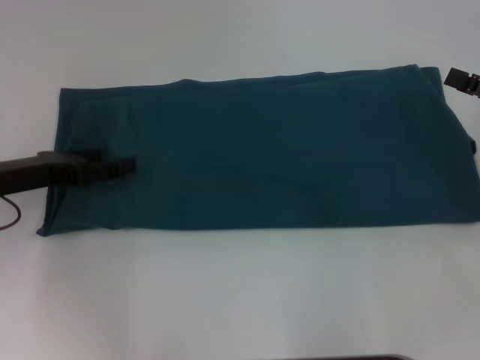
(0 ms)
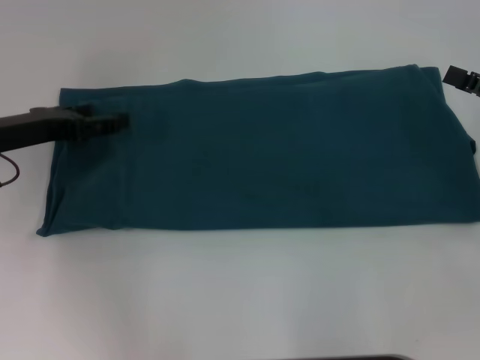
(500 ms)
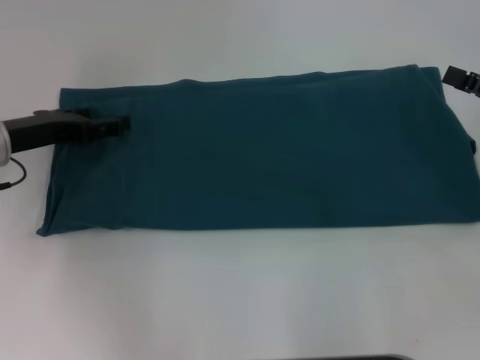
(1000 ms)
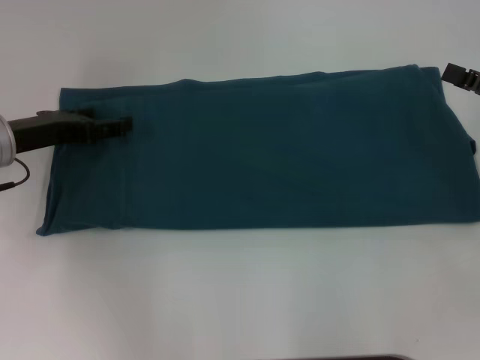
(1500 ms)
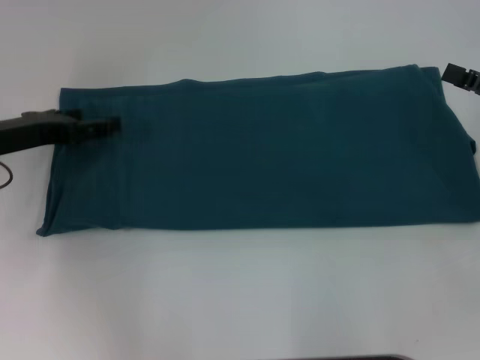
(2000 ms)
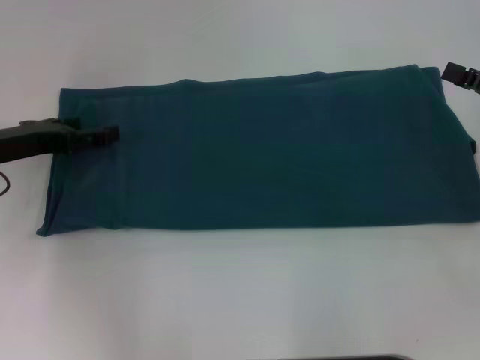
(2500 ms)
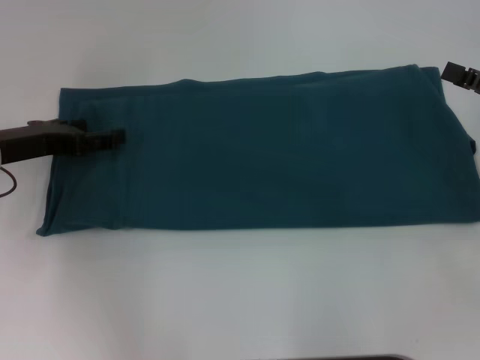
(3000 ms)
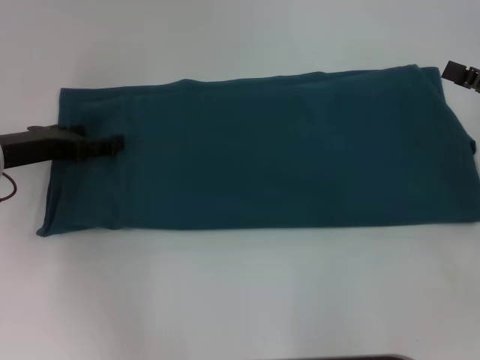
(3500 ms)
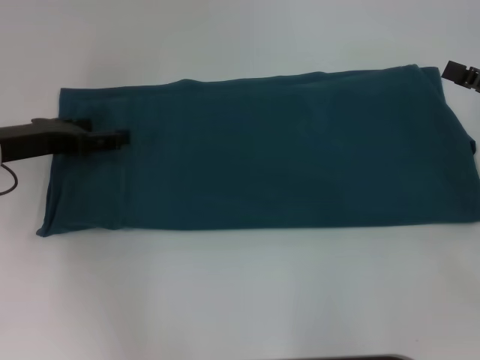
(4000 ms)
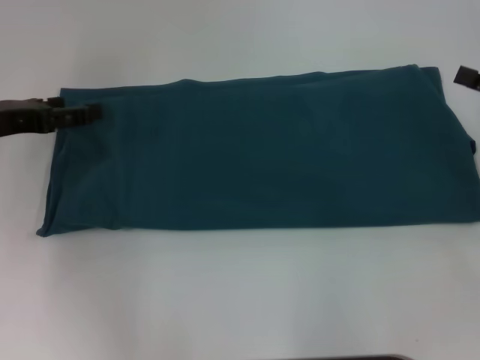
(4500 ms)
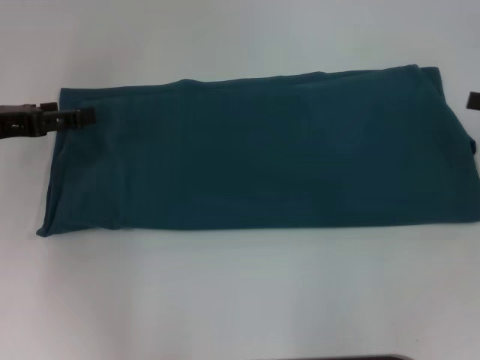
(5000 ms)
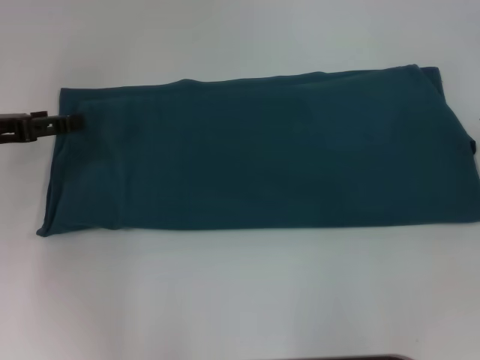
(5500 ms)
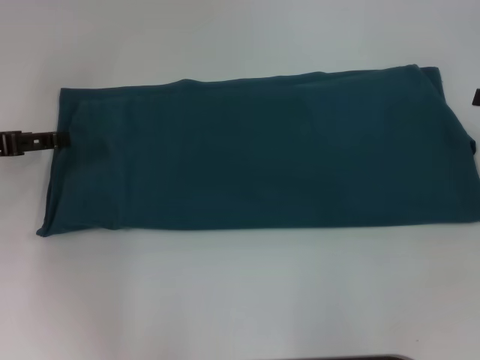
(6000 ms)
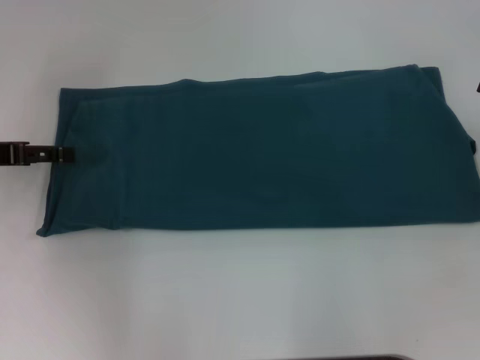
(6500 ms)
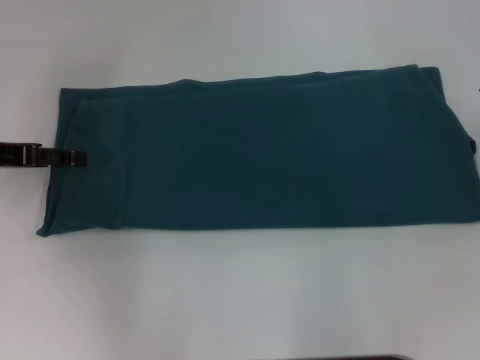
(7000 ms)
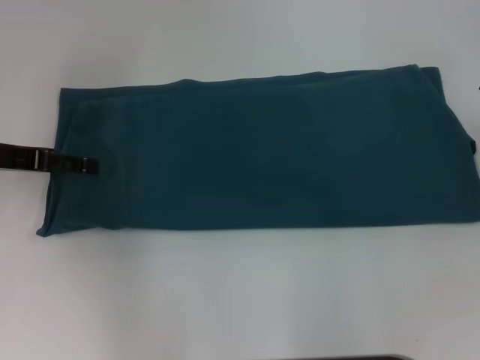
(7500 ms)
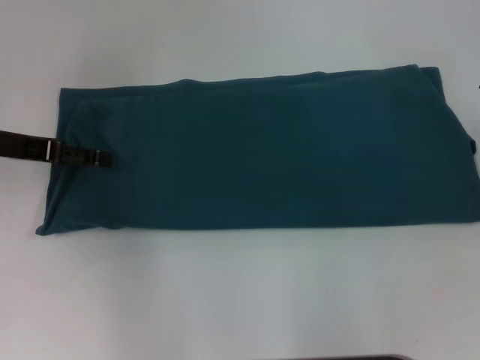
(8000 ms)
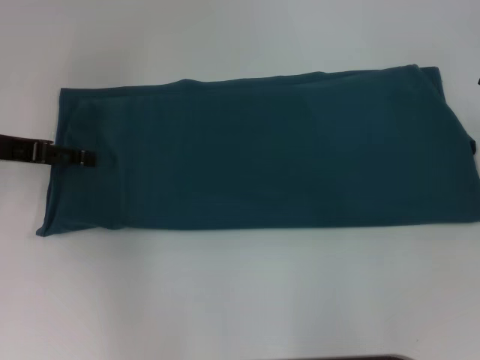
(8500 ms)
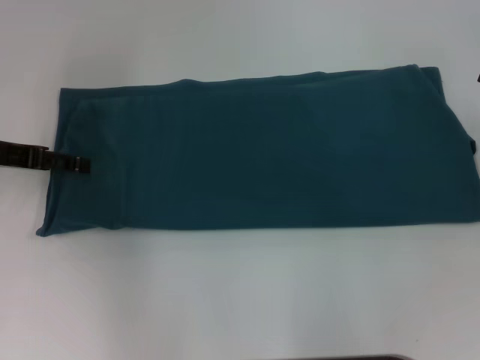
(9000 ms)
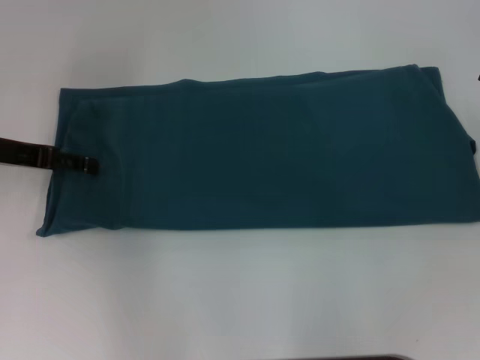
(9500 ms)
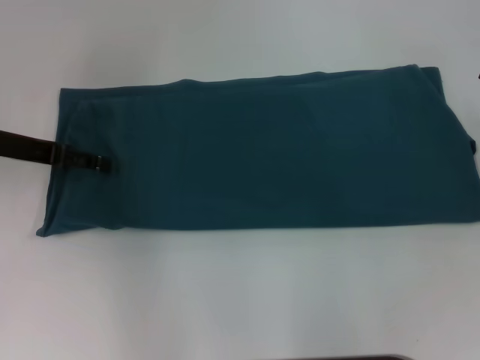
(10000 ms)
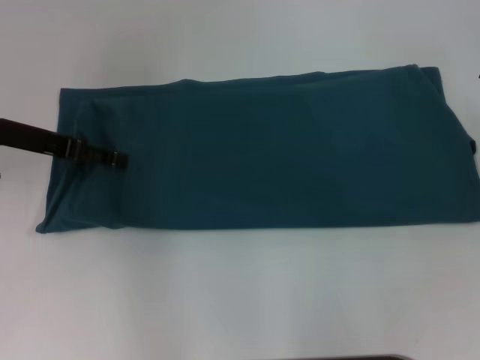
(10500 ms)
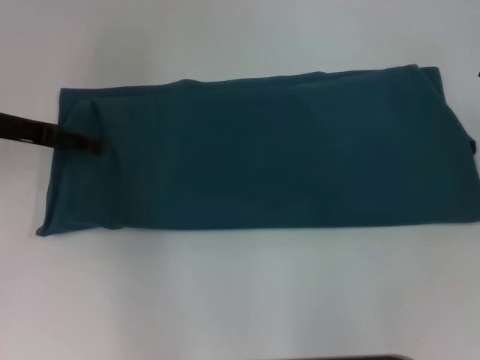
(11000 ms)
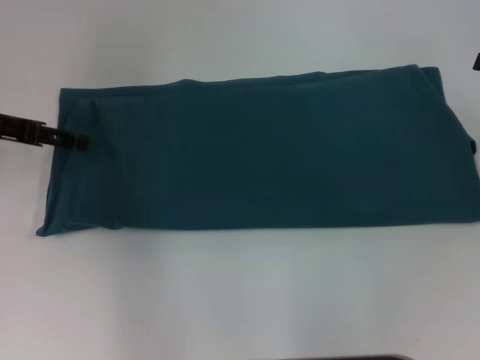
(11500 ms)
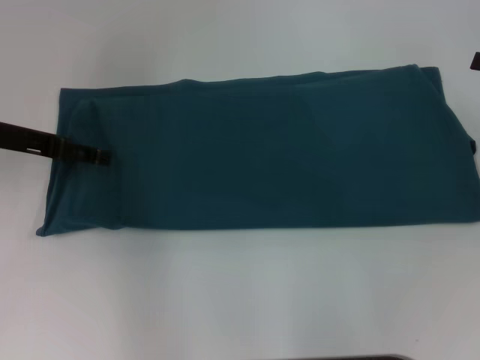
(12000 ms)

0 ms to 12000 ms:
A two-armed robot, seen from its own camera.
0 ms to 2000 ms: The grippers make only small movements.
2000 ms to 4000 ms: Both grippers stay about where they are.
4000 ms to 6000 ms: The left gripper is displaced to the left by roughly 5 cm.
6000 ms to 8000 ms: The left gripper moves approximately 5 cm.

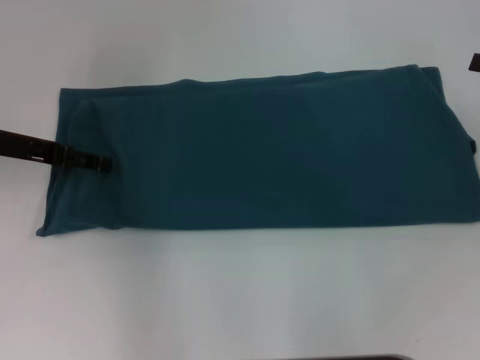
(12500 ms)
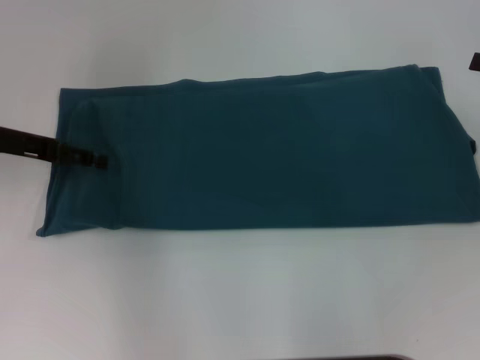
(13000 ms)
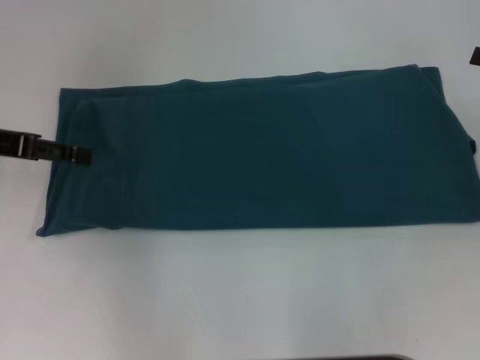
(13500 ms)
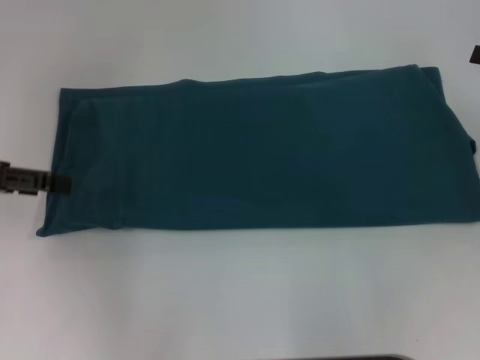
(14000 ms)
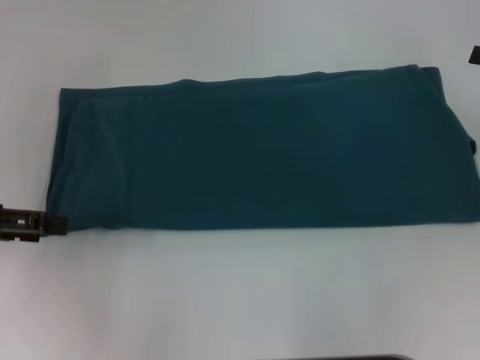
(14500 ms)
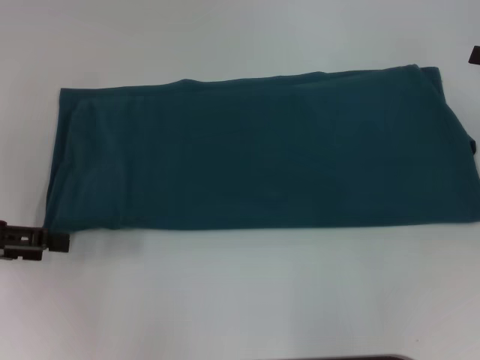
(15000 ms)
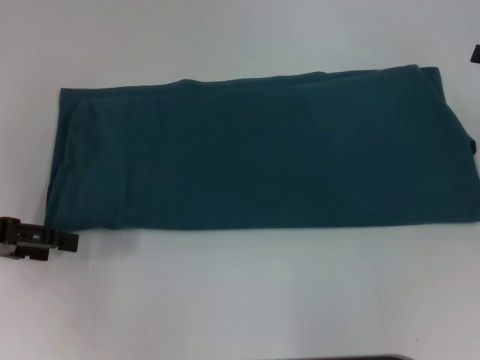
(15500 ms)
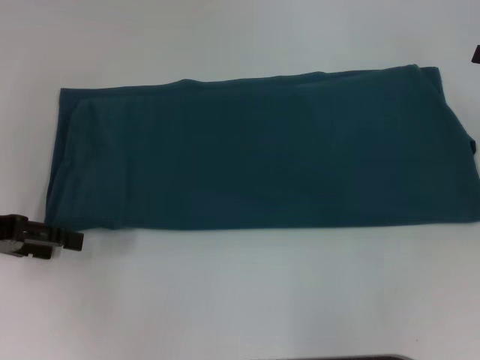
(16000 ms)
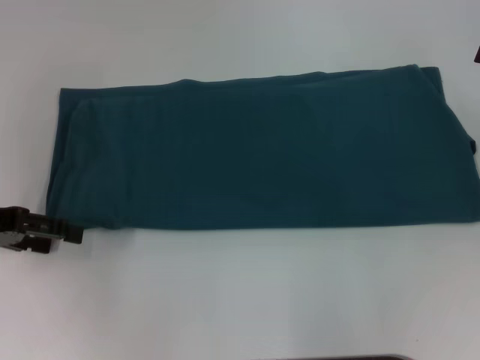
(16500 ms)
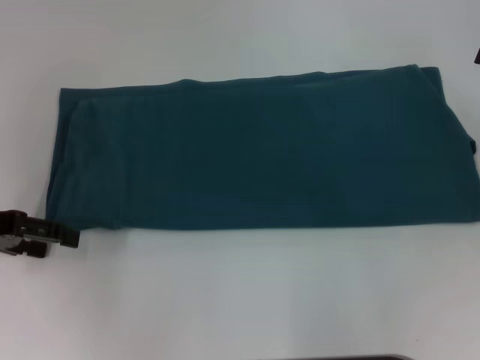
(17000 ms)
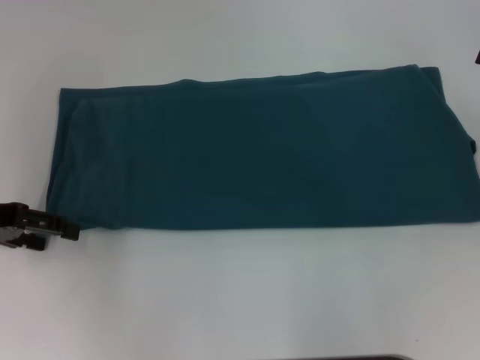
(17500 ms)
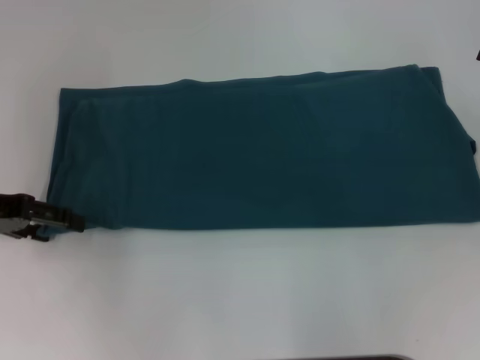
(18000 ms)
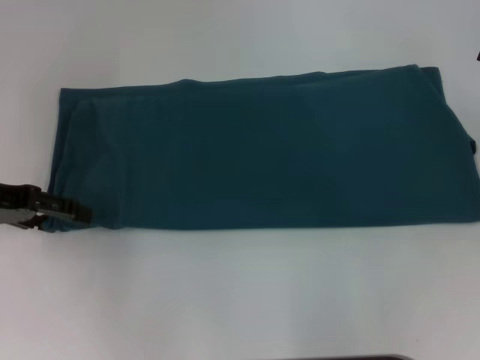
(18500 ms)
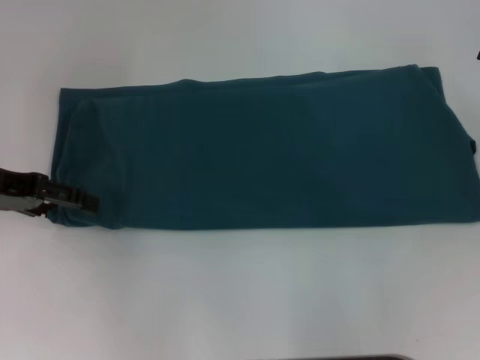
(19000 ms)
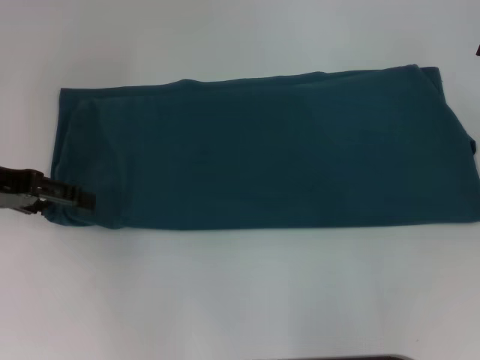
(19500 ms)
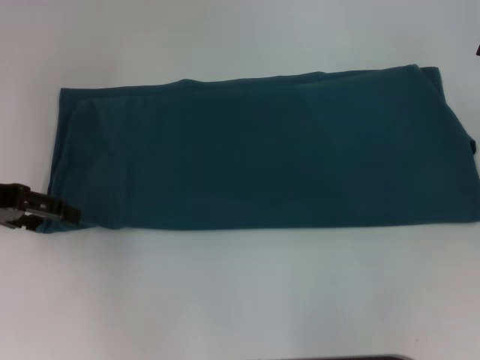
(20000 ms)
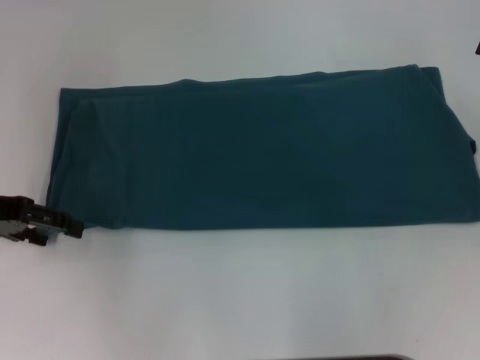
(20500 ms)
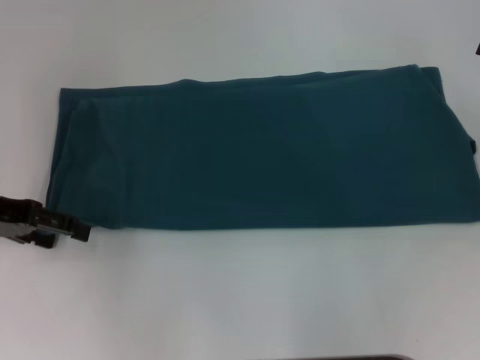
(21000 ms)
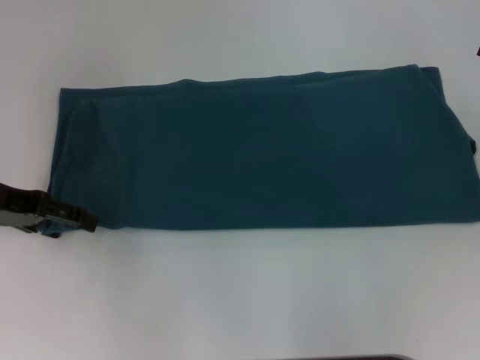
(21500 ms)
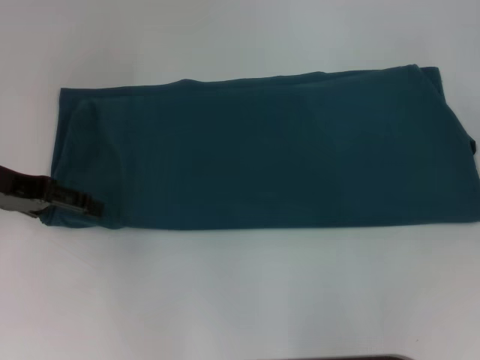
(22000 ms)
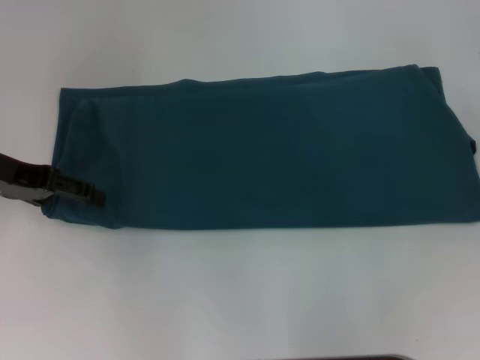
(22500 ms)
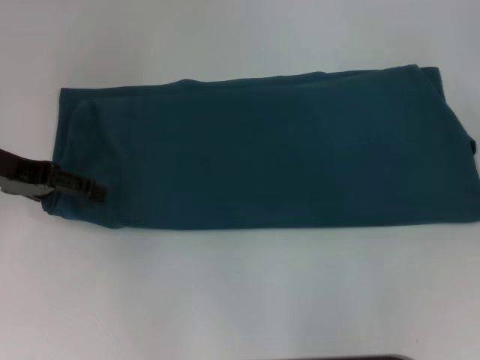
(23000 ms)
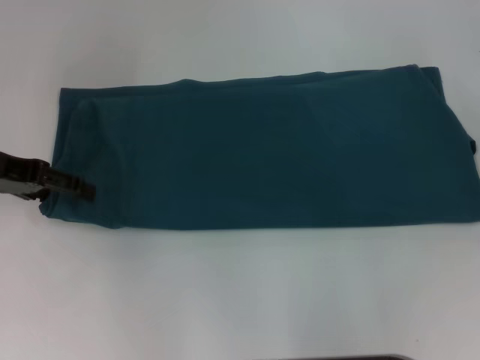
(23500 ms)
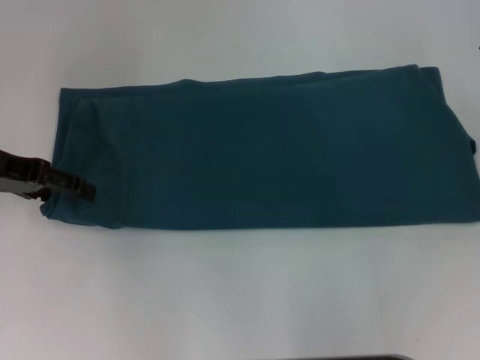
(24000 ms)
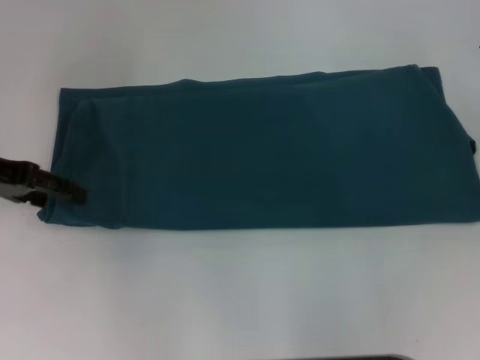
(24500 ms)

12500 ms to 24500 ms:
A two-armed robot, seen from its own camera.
12500 ms to 14500 ms: The left gripper moves backward and to the left, approximately 10 cm.
14500 ms to 18500 ms: The grippers stay close to where they were, moving slightly.
18500 ms to 22500 ms: There are only small adjustments of the grippers.

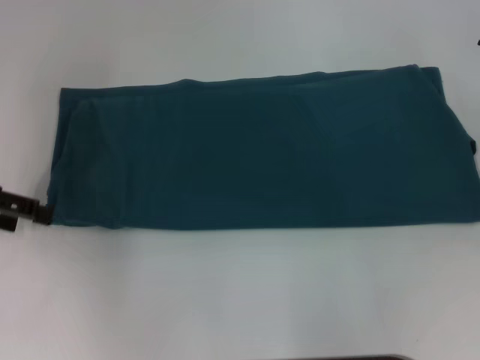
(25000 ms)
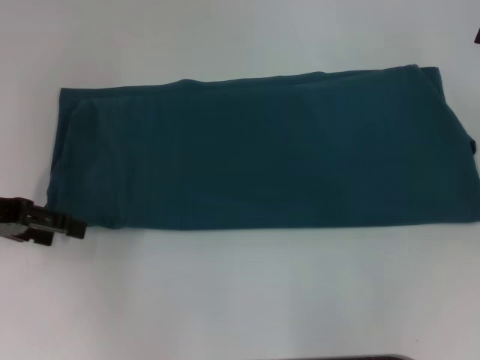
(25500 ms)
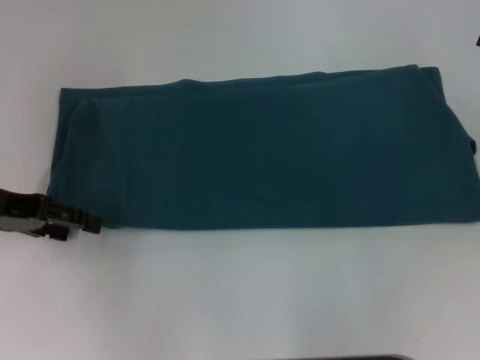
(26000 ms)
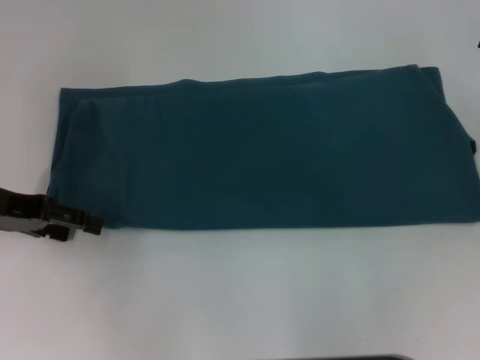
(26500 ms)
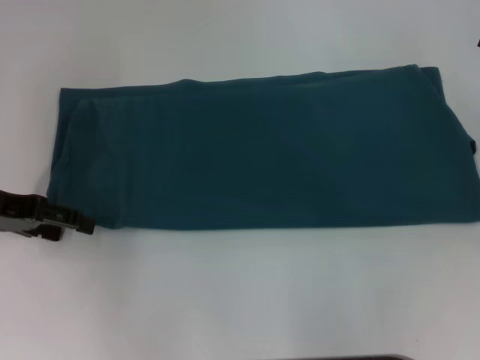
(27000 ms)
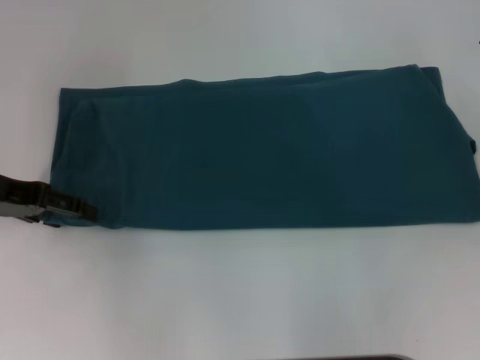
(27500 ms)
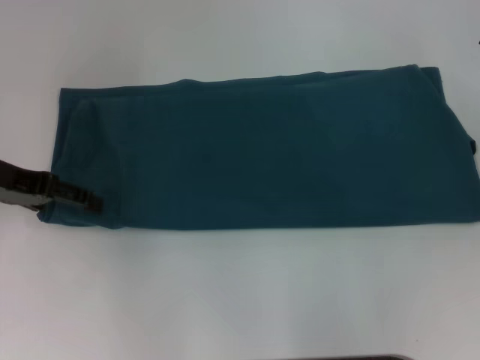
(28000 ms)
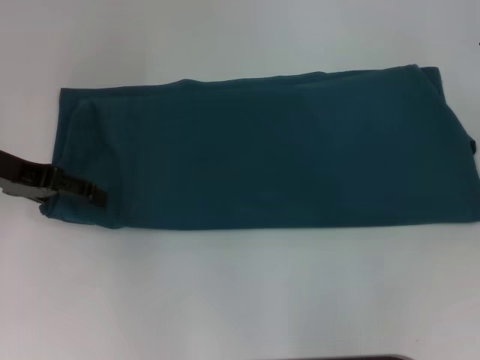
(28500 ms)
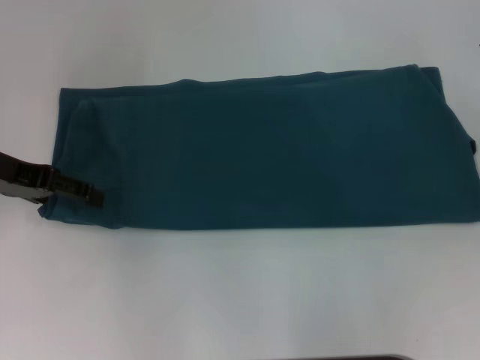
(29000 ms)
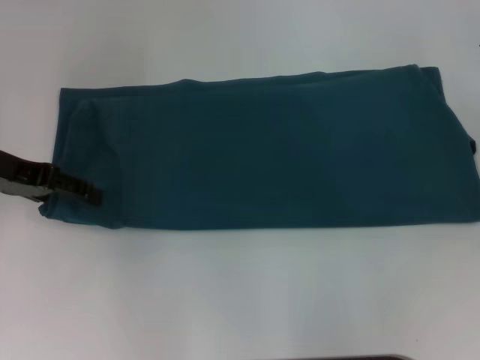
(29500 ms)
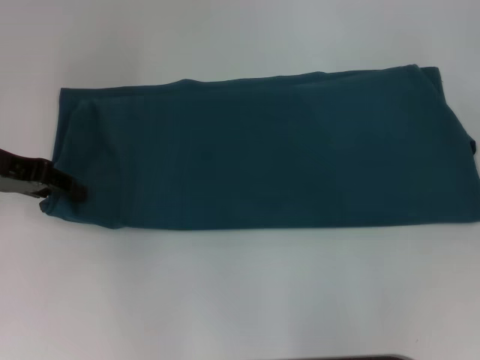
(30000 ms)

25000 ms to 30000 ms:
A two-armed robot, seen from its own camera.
25000 ms to 30000 ms: There are only small adjustments of the grippers.
